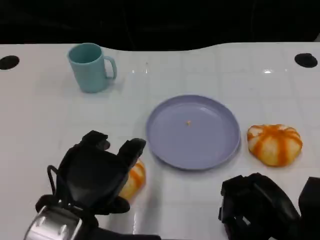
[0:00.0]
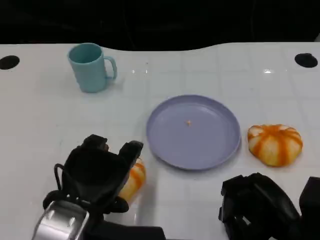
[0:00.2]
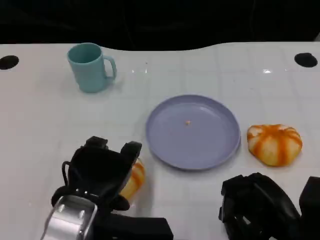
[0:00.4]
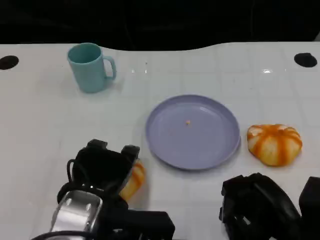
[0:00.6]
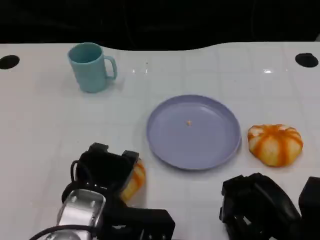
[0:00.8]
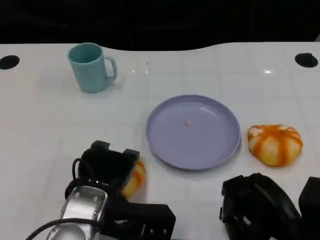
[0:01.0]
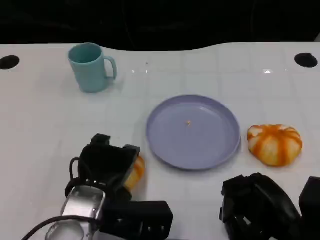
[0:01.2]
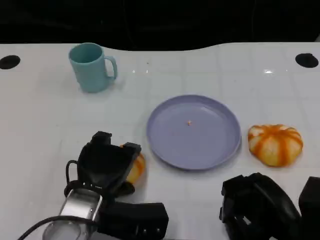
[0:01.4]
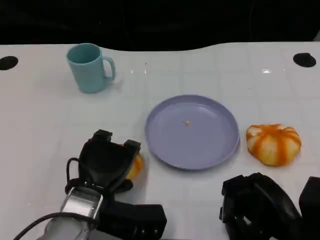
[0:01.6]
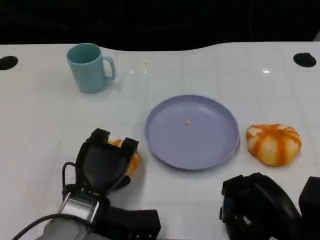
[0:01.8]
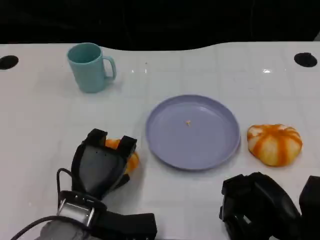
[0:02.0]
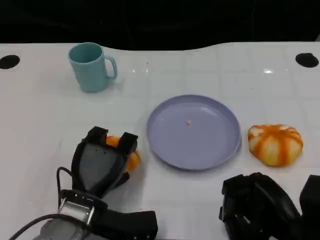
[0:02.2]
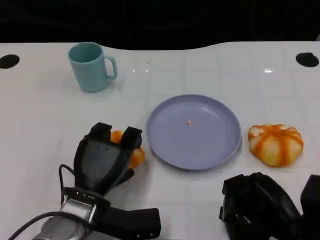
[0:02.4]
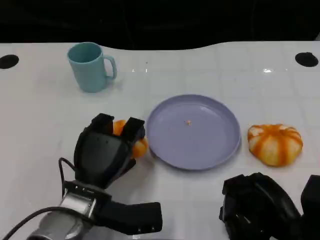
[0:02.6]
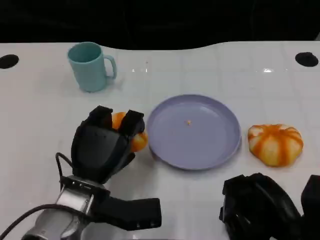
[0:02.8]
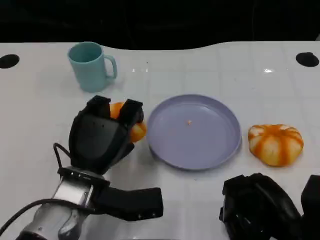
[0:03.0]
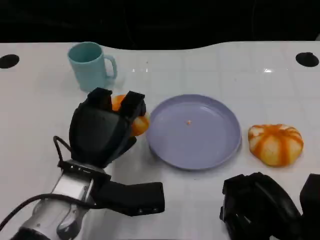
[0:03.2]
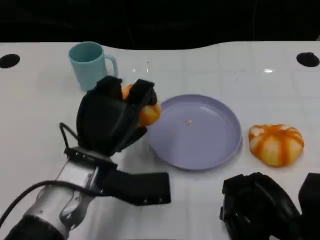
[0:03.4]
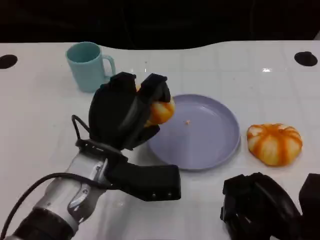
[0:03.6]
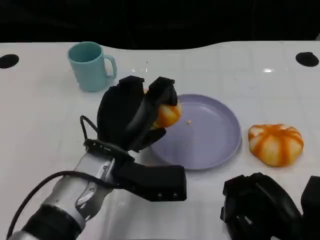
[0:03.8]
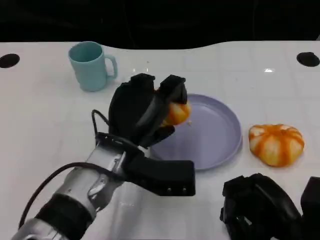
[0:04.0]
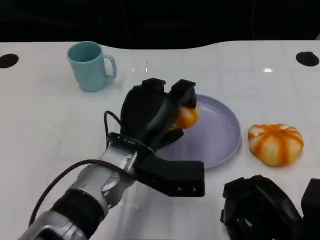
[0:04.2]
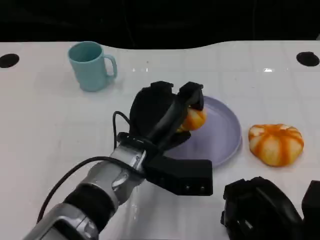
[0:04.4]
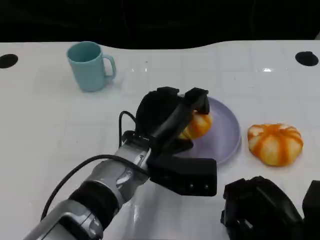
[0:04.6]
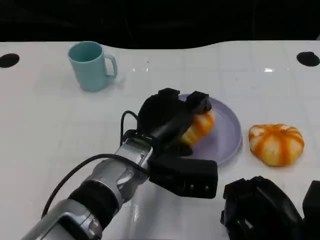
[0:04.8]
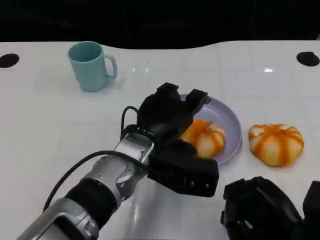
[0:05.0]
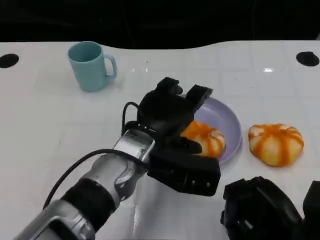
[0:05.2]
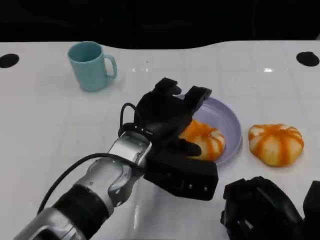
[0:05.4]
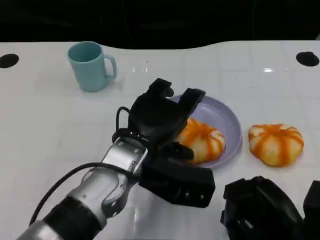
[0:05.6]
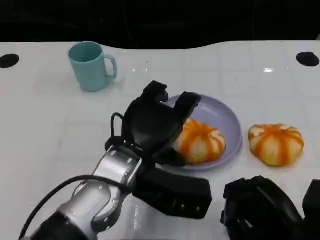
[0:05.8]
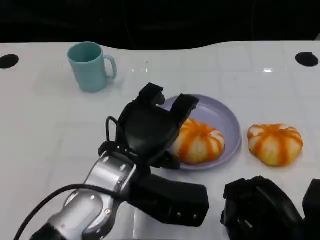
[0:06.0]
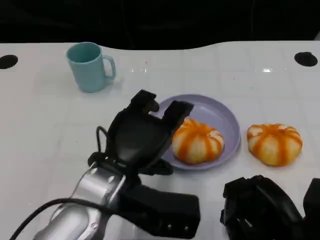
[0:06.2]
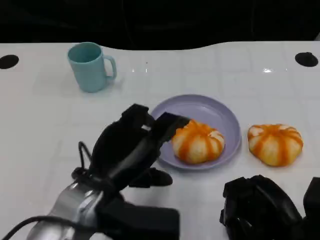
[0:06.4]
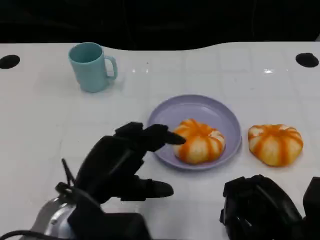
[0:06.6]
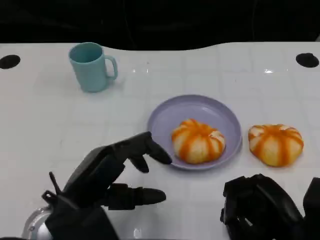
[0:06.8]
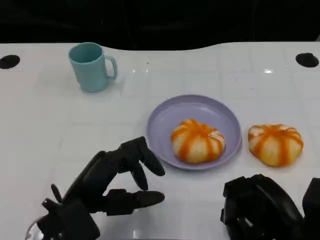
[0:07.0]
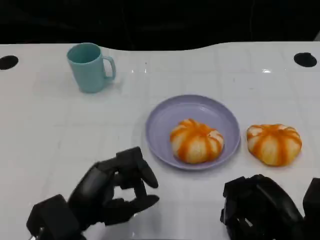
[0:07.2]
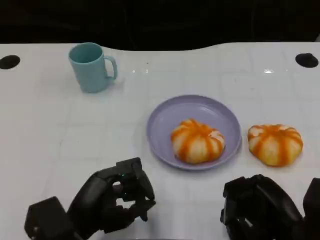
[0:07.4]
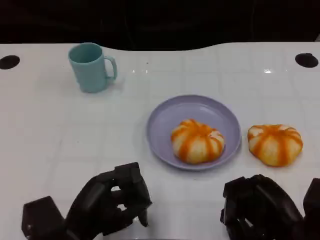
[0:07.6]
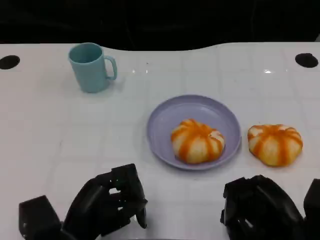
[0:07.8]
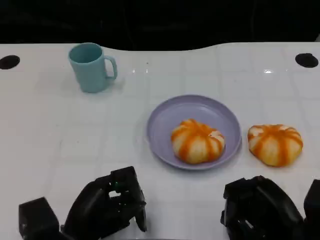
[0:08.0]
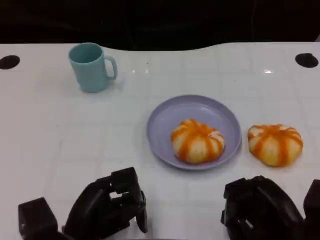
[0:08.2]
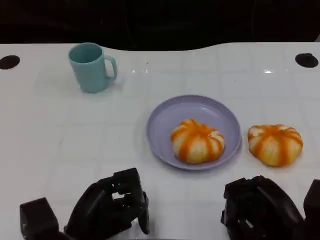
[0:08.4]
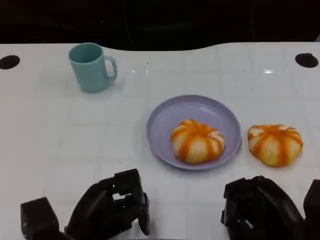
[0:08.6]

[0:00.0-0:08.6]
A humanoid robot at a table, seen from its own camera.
Task of the whole recording: Grasp the bread from the table and place it into the plate.
0:00.0 to 0:01.4: The left hand moves downward and forward, about 10 cm.
0:02.8 to 0:04.4: The left hand moves to the right, roughly 10 cm.
0:04.4 to 0:05.8: The left hand moves roughly 5 cm.
0:05.8 to 0:07.2: The left hand is displaced to the left, downward and backward by roughly 15 cm.

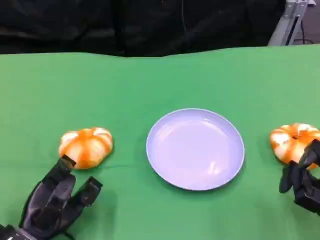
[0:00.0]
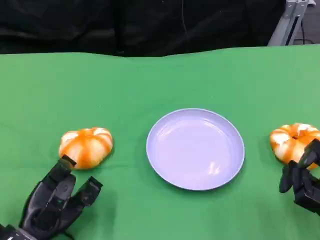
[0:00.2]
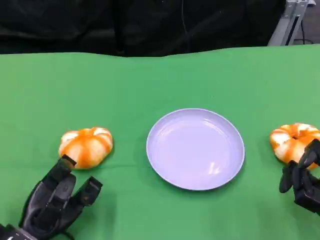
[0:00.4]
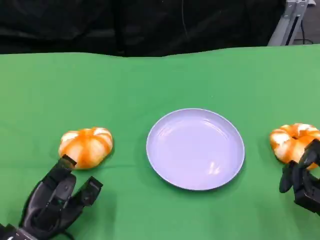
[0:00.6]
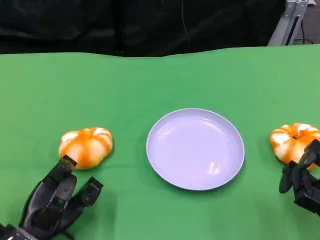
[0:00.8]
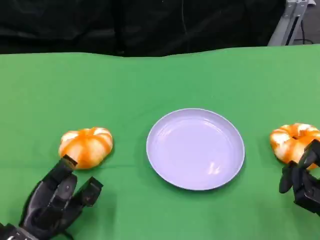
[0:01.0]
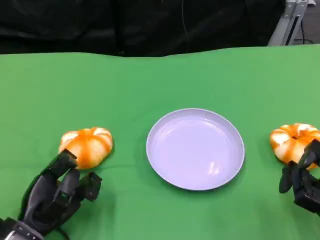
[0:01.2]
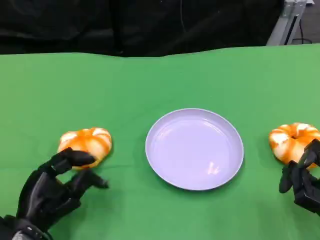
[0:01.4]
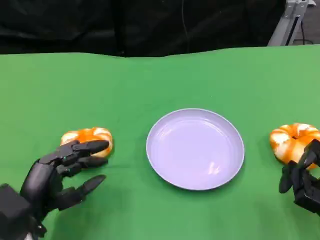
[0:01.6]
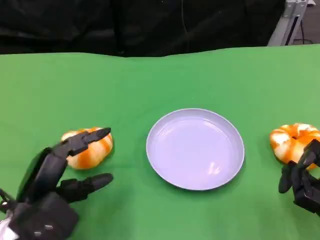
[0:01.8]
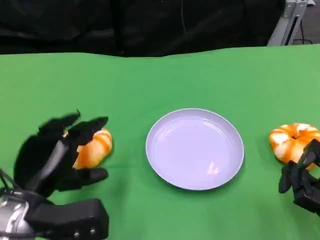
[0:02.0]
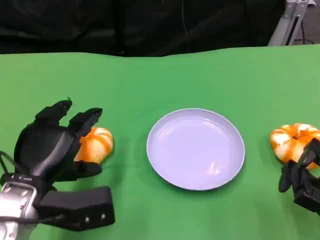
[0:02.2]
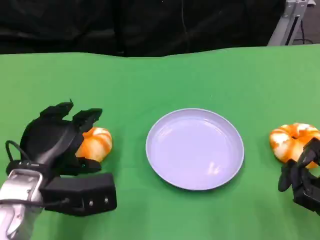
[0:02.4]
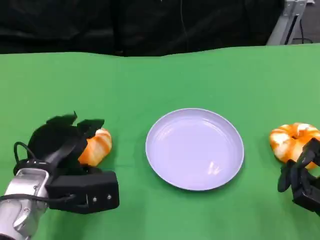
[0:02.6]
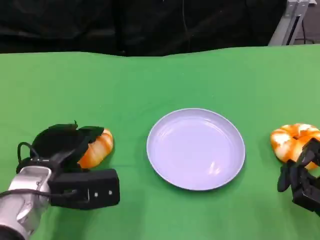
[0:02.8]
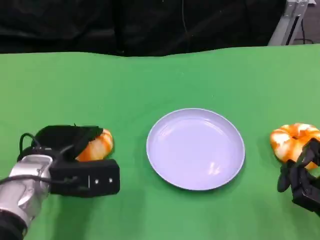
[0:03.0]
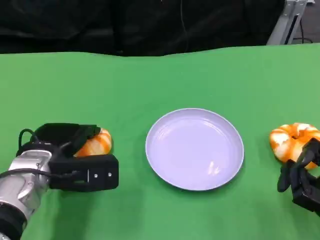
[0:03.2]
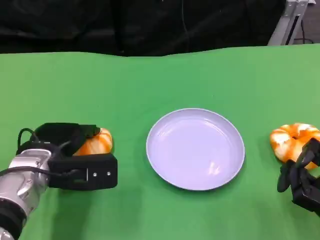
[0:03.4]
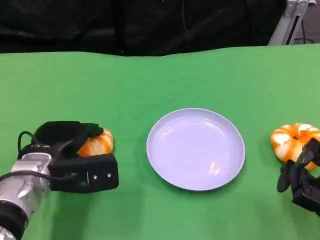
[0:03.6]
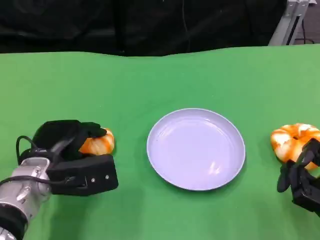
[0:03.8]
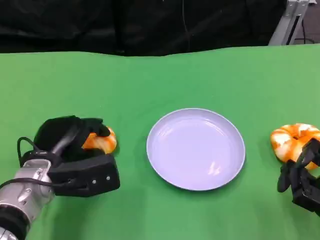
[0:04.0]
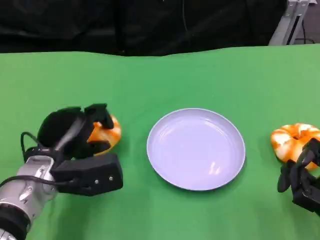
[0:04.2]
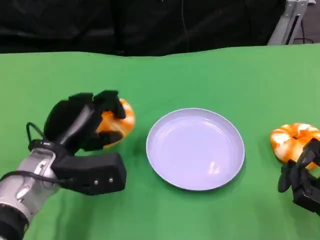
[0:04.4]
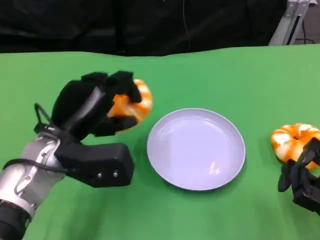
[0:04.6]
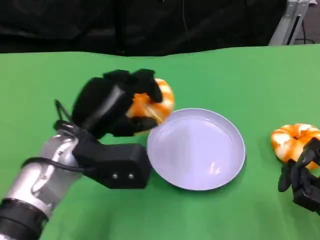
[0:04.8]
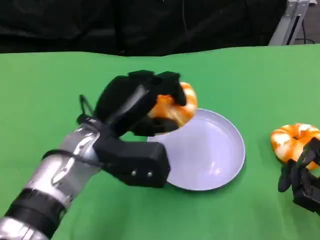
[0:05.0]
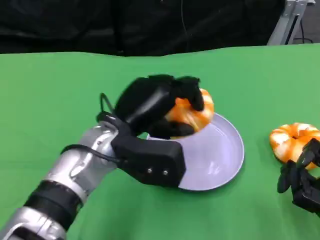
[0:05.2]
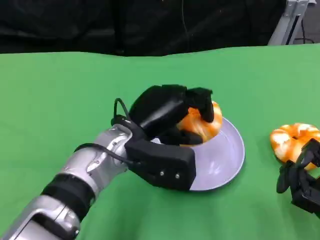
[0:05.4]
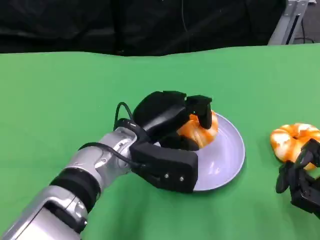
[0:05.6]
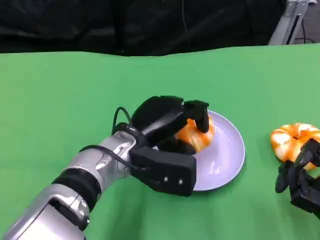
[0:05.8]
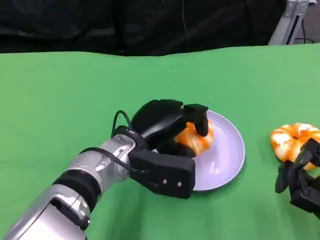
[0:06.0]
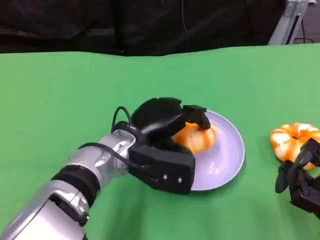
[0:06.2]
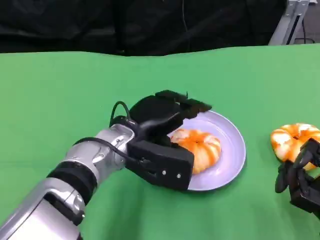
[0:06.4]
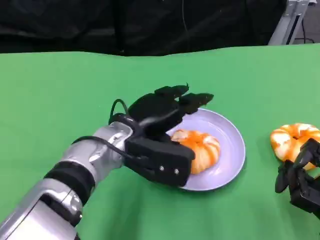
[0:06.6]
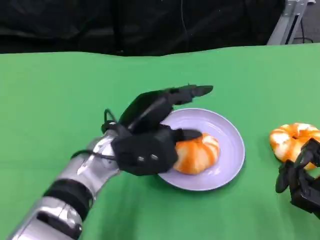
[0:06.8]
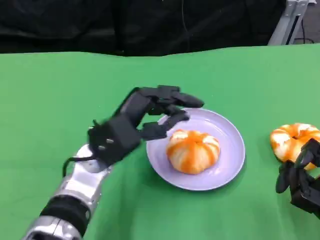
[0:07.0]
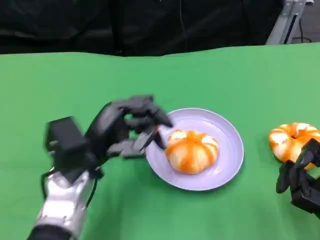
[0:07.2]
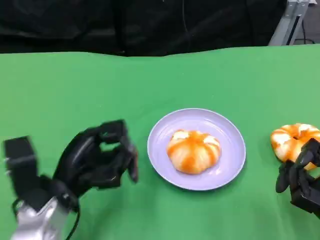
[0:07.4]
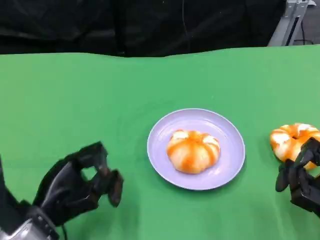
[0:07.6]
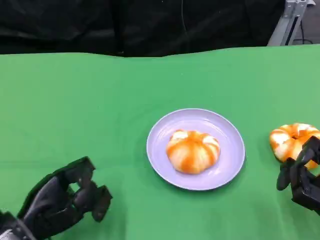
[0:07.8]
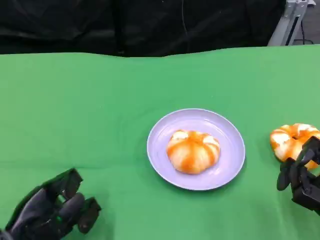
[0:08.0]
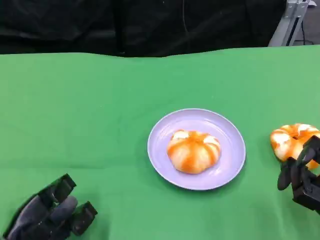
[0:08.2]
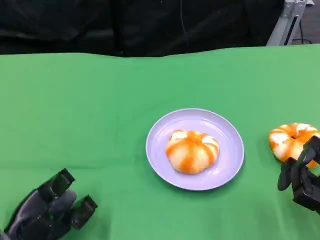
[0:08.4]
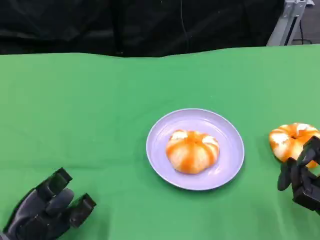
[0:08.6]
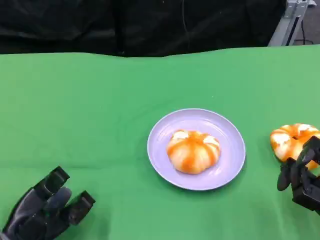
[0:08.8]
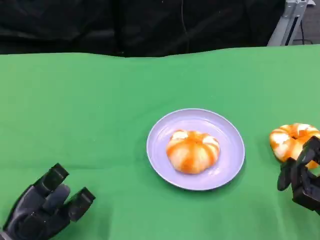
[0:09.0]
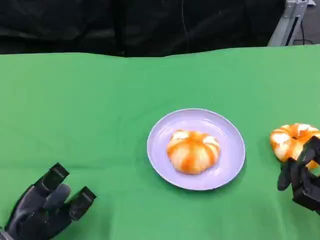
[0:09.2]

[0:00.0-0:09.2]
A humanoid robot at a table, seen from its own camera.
Task of the whole recording: Grasp the bread from the table and place it into the plate.
0:00.0 to 0:01.6: The left hand heads upward, covering some 5 cm.
0:01.6 to 0:03.0: The left hand is displaced forward by about 10 cm.
0:03.0 to 0:04.6: The left hand is displaced upward by some 5 cm.
0:04.6 to 0:06.2: The left hand is displaced to the right by some 10 cm.
0:06.2 to 0:07.6: The left hand travels to the left, backward and downward by some 20 cm.
0:07.6 to 0:09.2: The left hand moves about 5 cm.

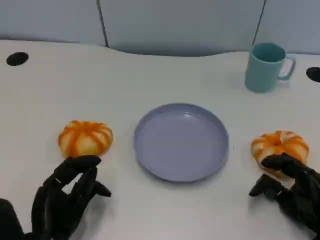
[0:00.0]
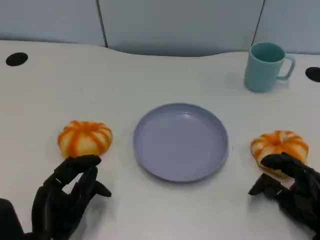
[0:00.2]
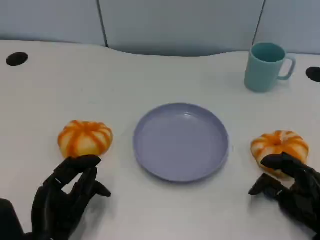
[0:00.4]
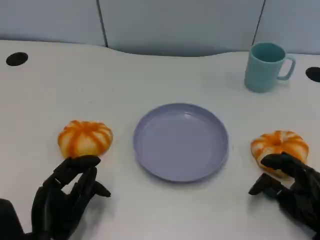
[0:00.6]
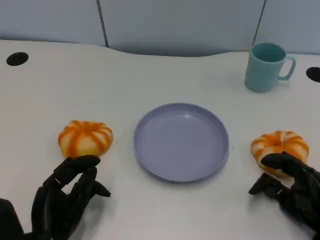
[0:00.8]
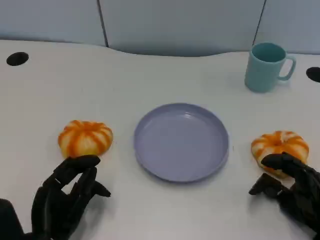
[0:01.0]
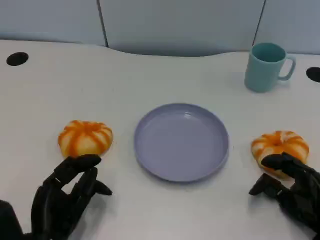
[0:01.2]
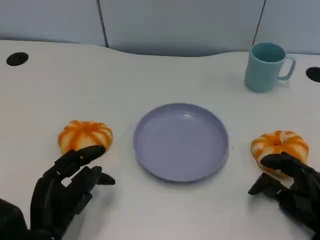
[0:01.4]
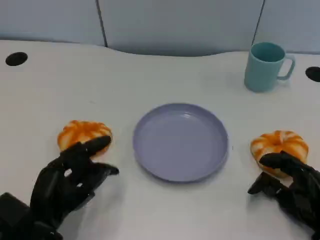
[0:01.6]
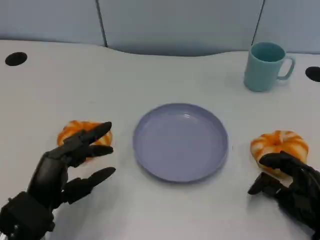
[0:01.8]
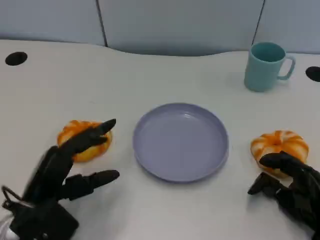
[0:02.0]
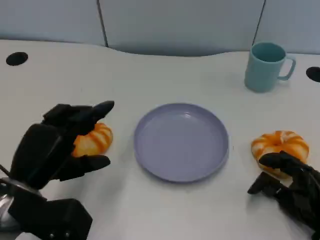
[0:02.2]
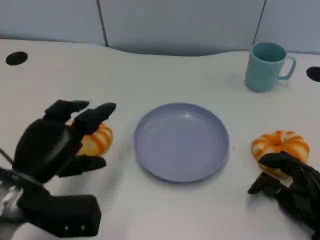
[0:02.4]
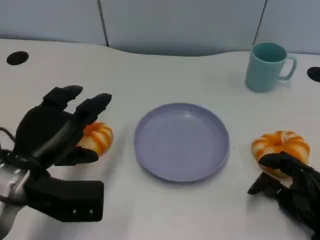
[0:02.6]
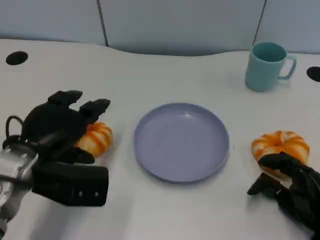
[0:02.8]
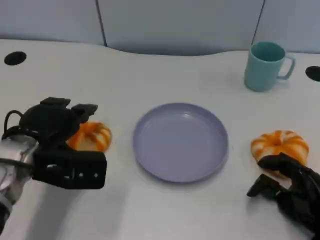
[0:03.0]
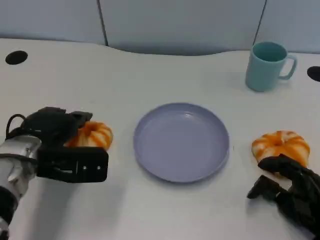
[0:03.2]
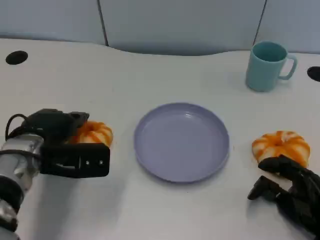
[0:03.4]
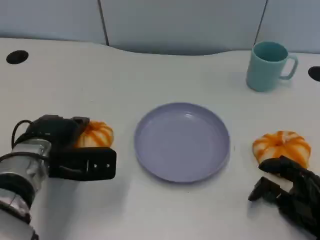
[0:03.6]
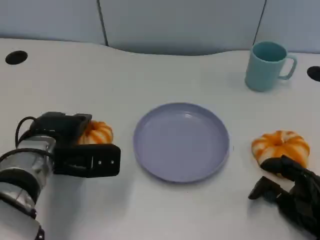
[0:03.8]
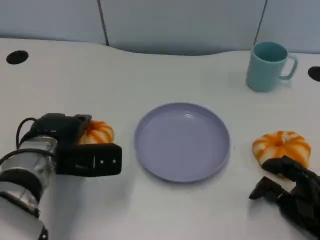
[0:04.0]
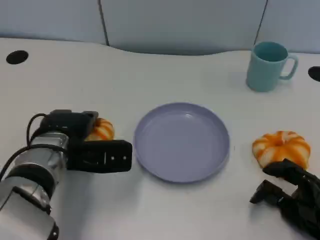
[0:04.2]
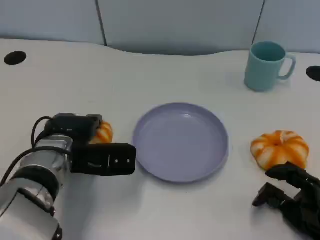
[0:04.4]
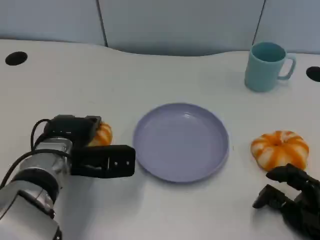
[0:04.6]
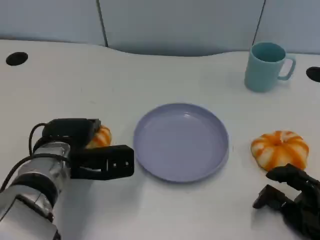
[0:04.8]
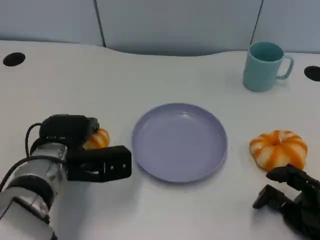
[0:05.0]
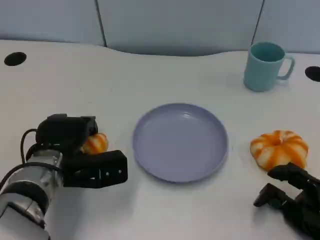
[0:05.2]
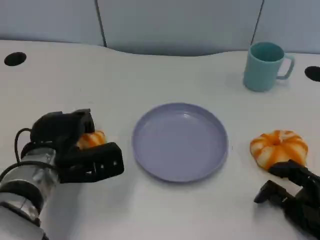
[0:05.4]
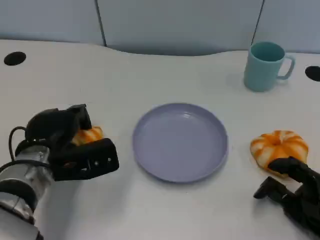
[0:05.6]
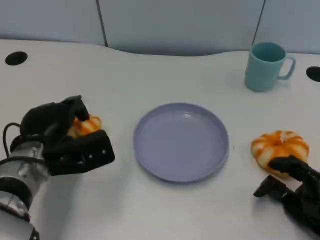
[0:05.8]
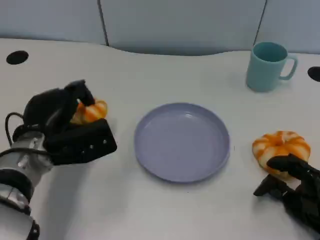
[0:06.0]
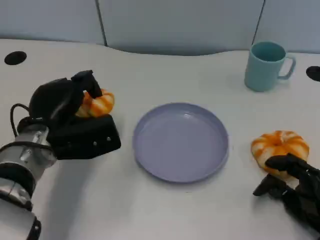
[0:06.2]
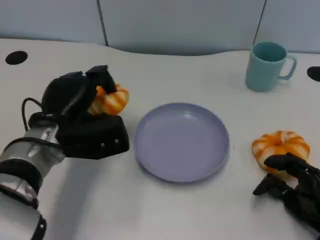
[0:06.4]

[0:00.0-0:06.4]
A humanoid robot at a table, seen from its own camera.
Task of the whole recording: Grasp the bread from the table and place it into the plate.
0:01.6 to 0:03.2: The left hand goes roughly 10 cm forward and upward.
0:03.2 to 0:04.8: The hands stay close to where they were, moving slightly.
